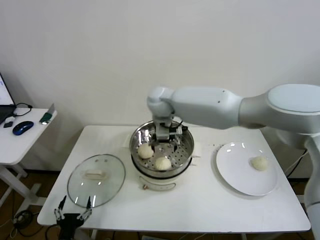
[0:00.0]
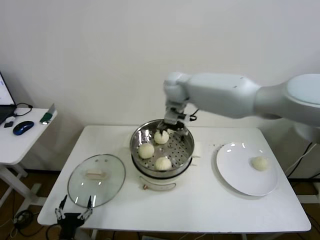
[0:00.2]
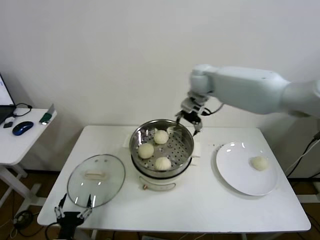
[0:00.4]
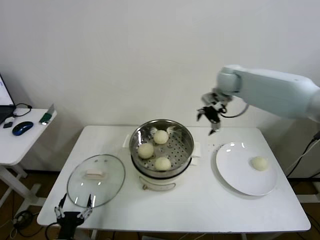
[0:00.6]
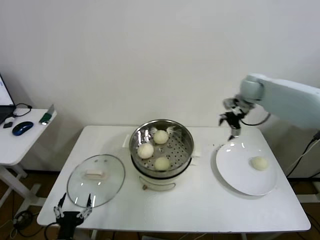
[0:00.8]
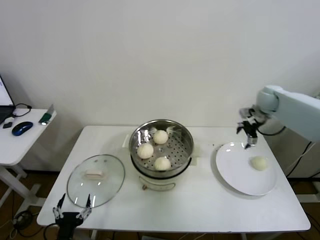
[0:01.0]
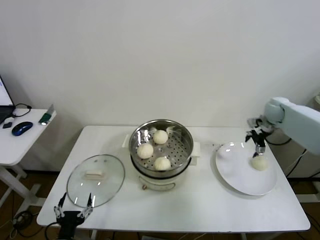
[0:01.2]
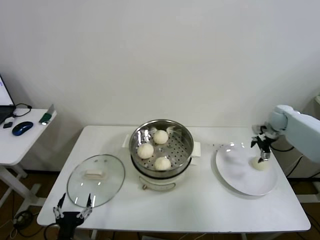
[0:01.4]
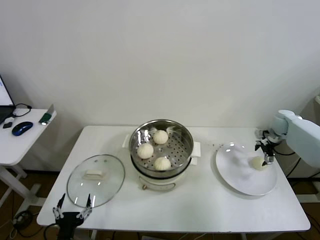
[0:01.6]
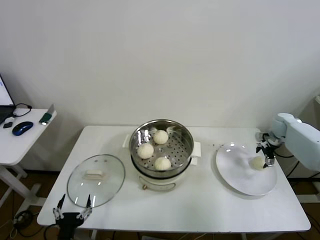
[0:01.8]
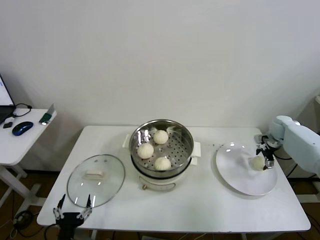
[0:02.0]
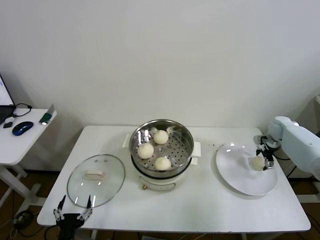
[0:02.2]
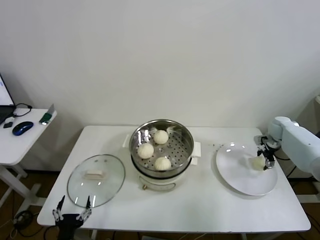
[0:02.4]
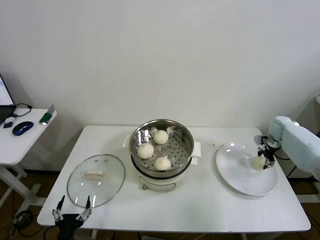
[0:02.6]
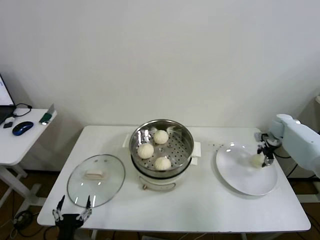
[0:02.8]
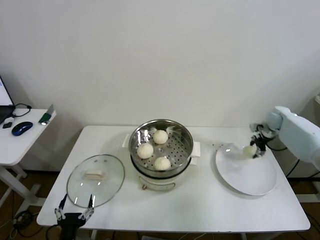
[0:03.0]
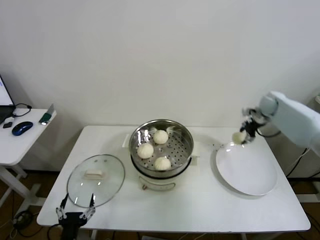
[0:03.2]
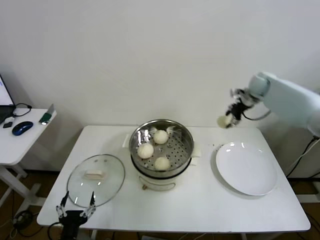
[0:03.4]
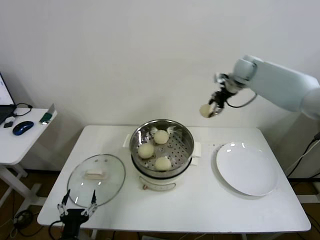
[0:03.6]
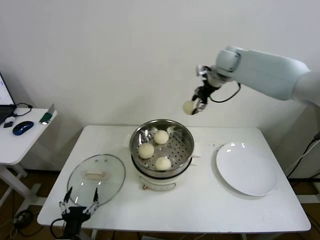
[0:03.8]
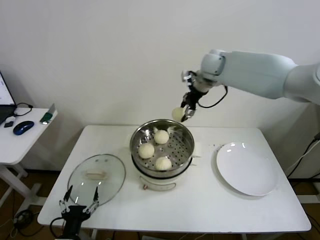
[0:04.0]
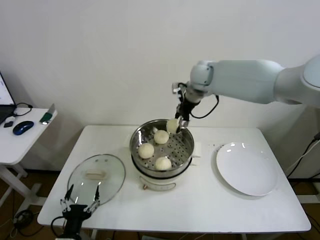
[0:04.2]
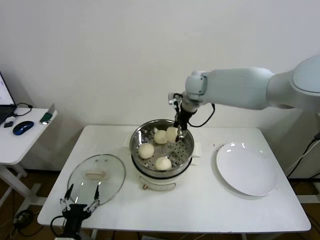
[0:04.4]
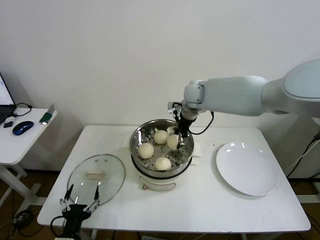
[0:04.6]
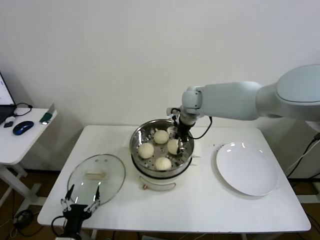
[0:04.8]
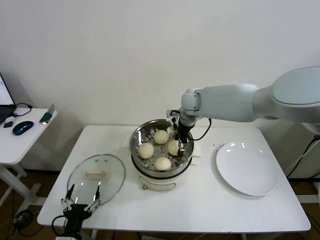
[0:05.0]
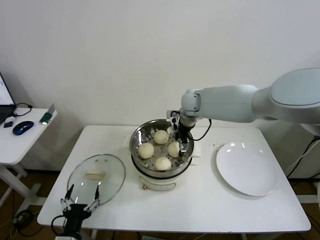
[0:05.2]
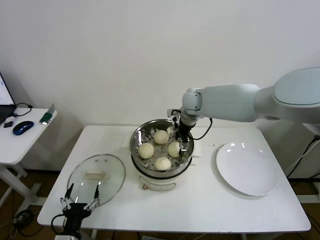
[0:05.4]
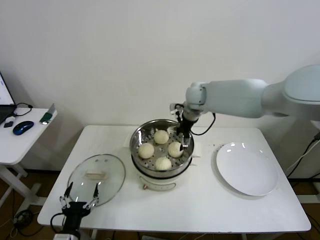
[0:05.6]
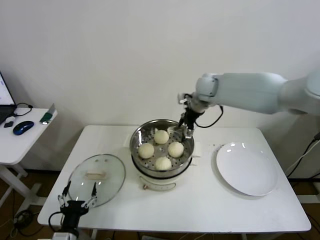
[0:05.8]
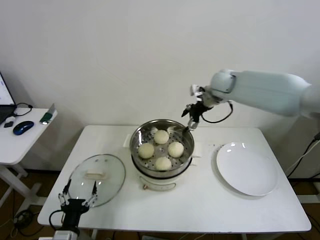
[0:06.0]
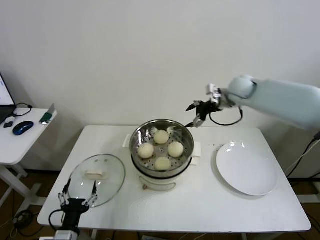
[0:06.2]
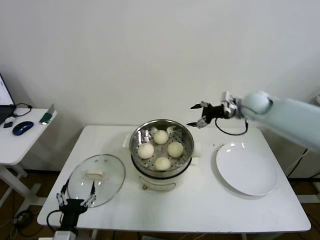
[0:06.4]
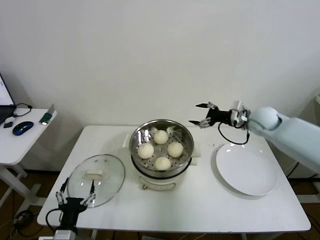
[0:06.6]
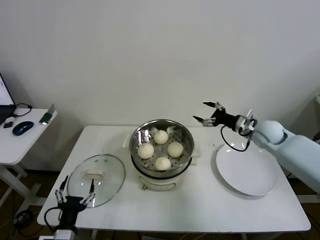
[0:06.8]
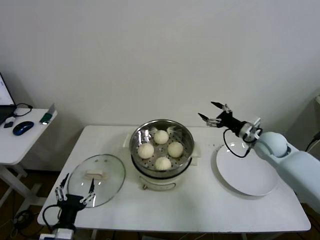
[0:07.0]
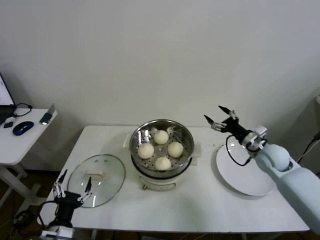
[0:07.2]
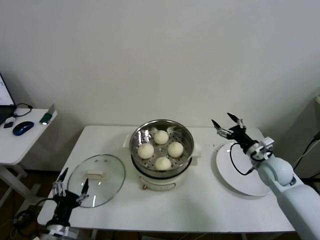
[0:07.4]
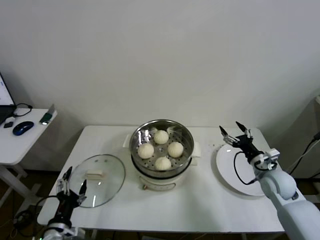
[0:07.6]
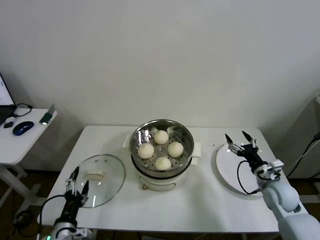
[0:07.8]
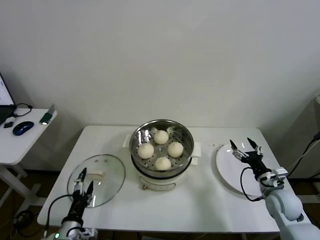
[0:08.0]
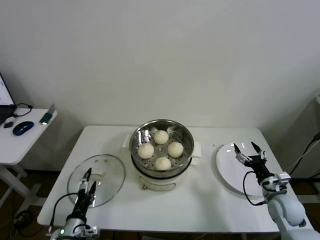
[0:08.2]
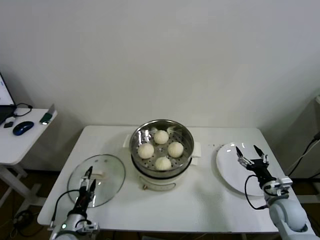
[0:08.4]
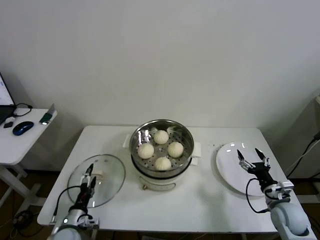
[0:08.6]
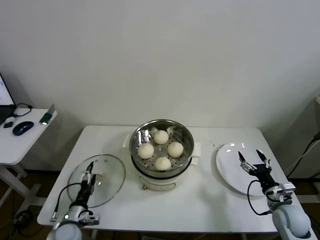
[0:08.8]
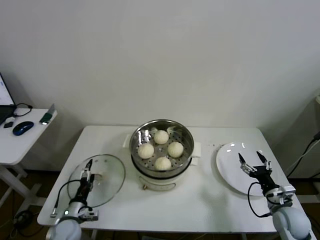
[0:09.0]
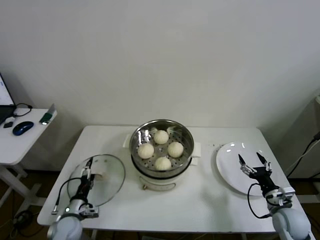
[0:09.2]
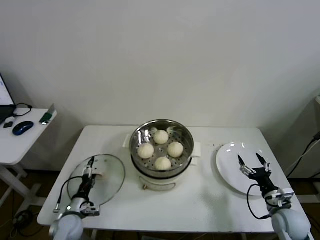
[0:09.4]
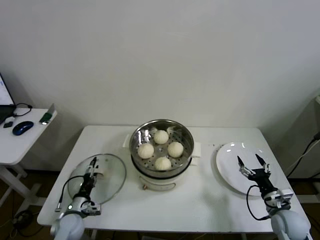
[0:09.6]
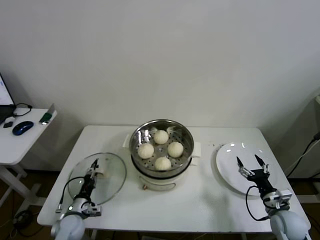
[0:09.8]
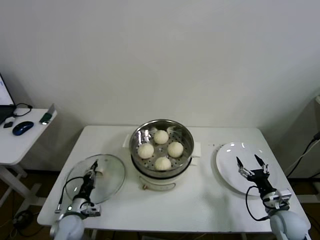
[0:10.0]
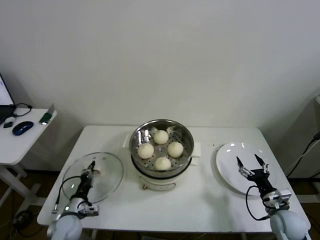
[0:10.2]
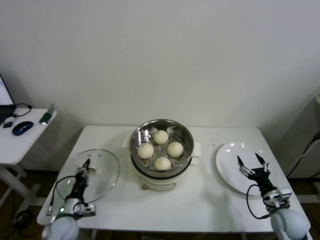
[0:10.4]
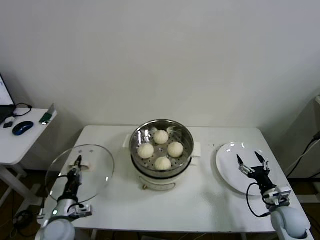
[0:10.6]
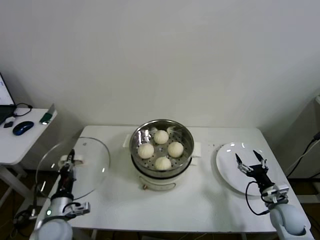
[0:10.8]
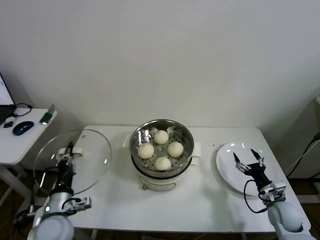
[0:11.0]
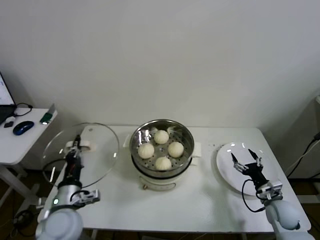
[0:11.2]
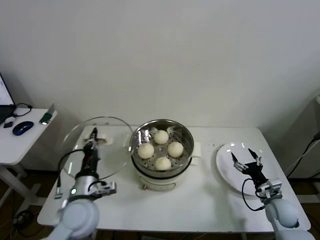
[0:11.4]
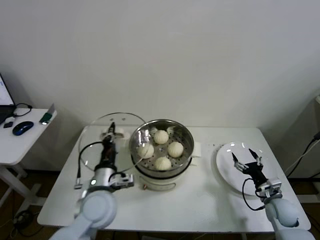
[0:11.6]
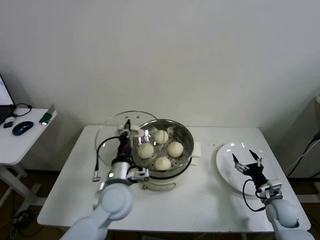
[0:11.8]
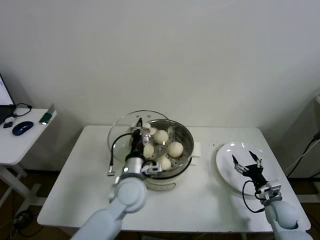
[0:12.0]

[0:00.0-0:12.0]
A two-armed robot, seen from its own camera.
Step, 0:00.0 to 0:02.6: Grasp the baozi in the plate with right gripper.
Step, 0:02.8 to 0:05.0: Place the baozi on the steamer with right gripper.
Step, 0:05.2 to 0:10.0: Grasp the pot lid with left gripper.
0:00.0 to 0:01.6: The right gripper is displaced to the right by about 50 cm.
0:01.6 to 0:03.0: The right gripper closes its fingers.
0:03.0 to 0:04.4: The right gripper shifts roughly 40 cm to the left and upward.
0:04.4 to 0:06.0: The right gripper goes about 10 cm to the right, and opens its fingers.
0:06.0 to 0:07.6: The right gripper moves downward, backward and to the right, approximately 40 cm.
0:07.6 to 0:09.0: The left gripper travels downward and forward by about 15 cm; the right gripper moves backward and downward, roughly 10 cm.
0:09.0 to 0:10.4: The left gripper closes its fingers.
0:10.4 to 0:12.0: The left gripper travels to the right and upward by some 30 cm.

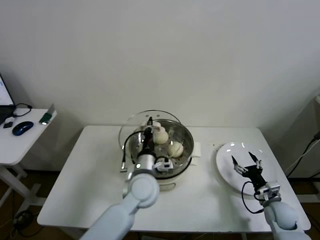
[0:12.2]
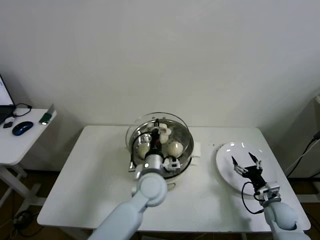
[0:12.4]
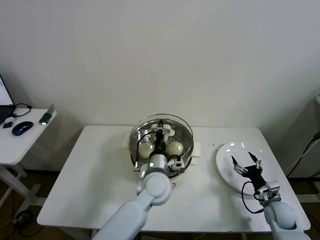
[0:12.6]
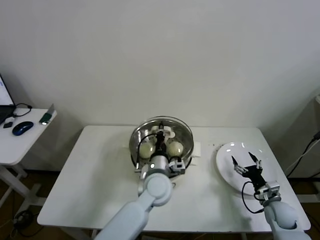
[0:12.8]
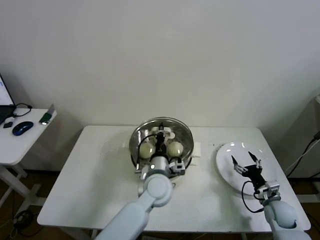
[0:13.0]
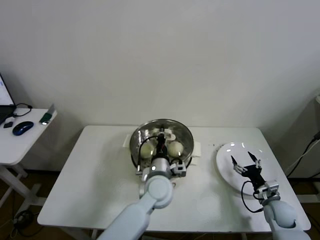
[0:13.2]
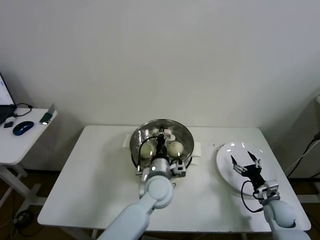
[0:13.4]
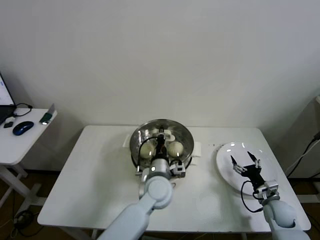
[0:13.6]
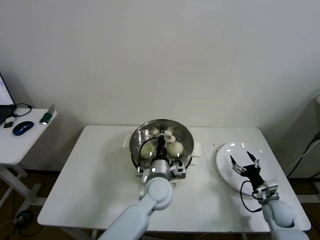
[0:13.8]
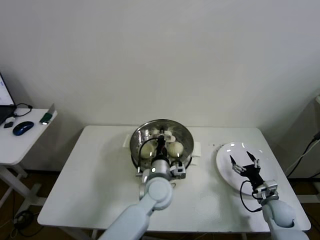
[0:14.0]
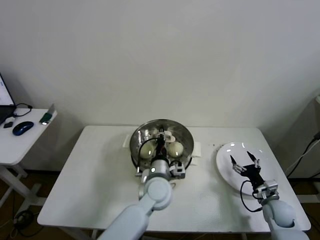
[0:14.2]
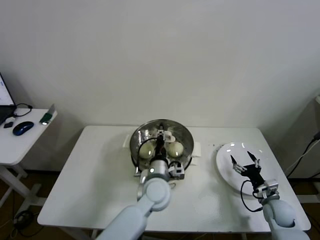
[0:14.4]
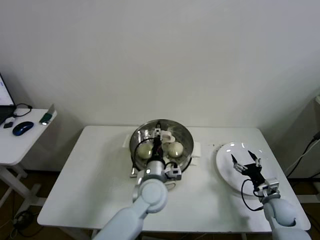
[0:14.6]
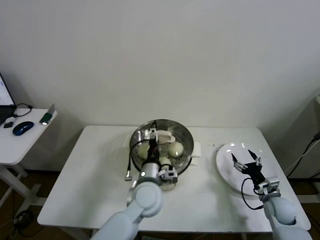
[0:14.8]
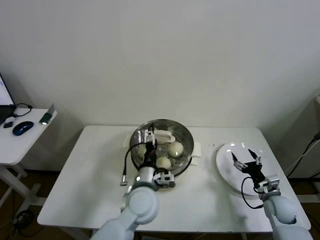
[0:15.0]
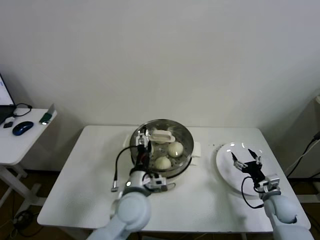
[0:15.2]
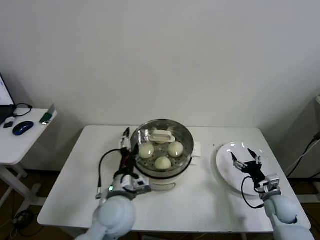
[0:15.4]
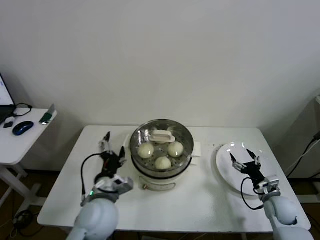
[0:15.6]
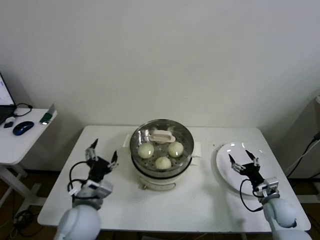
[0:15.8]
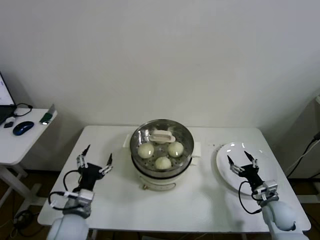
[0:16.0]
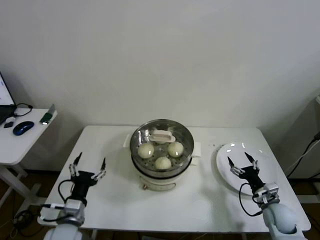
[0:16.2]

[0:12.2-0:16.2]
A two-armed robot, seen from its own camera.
0:12.2 to 0:13.6: The left gripper moves to the right, roughly 5 cm.
0:13.6 to 0:14.8: The left gripper opens its fingers.
0:14.8 to 0:16.2: The left gripper shifts some 25 cm to the left and backward.

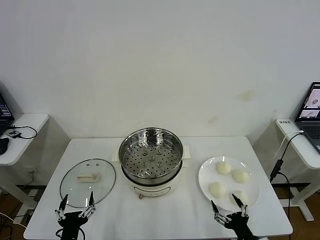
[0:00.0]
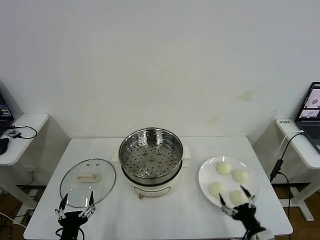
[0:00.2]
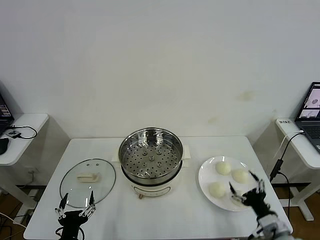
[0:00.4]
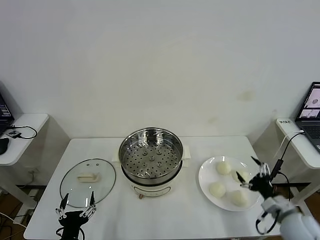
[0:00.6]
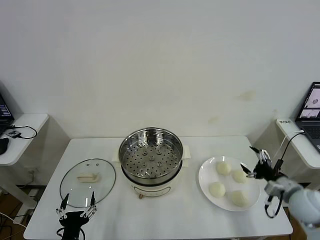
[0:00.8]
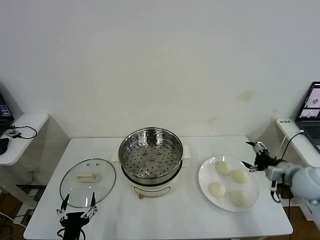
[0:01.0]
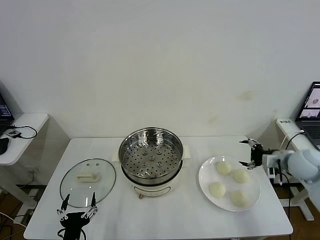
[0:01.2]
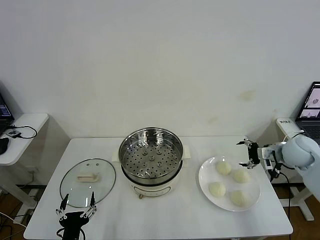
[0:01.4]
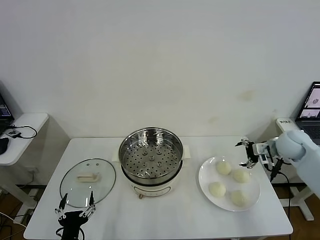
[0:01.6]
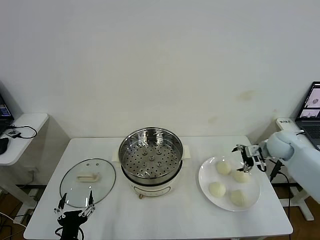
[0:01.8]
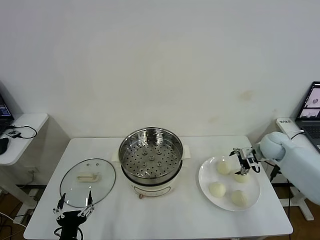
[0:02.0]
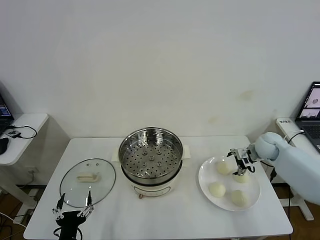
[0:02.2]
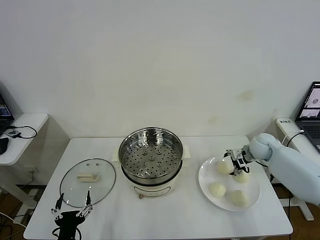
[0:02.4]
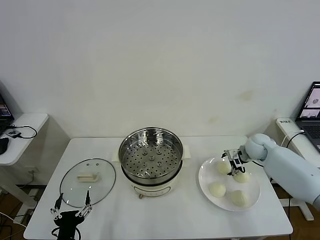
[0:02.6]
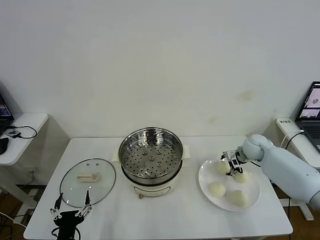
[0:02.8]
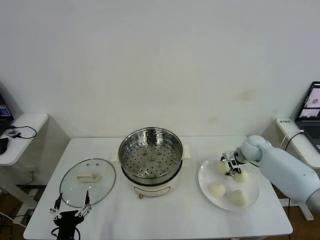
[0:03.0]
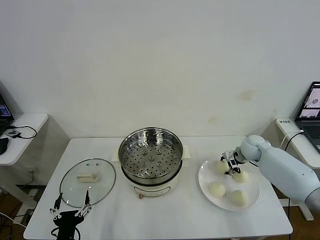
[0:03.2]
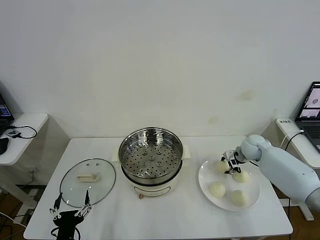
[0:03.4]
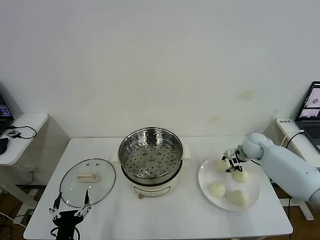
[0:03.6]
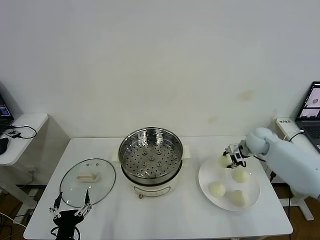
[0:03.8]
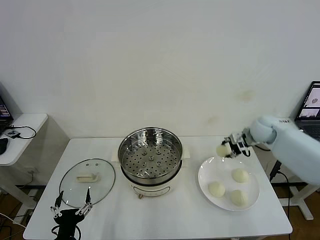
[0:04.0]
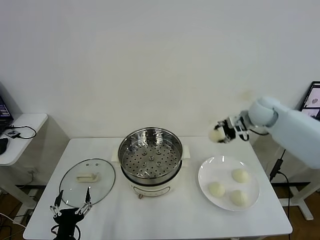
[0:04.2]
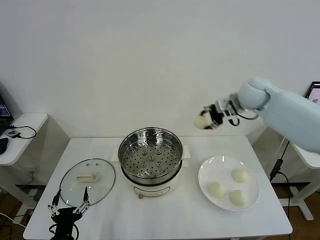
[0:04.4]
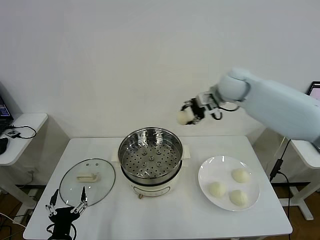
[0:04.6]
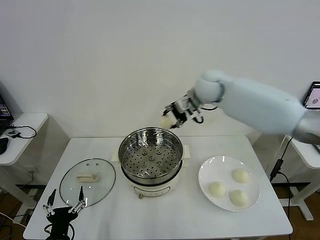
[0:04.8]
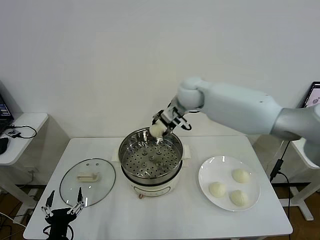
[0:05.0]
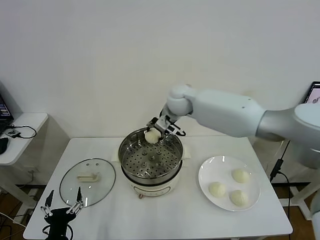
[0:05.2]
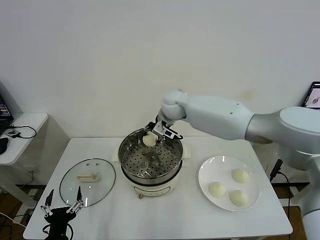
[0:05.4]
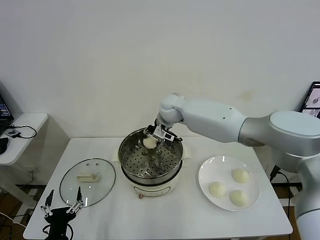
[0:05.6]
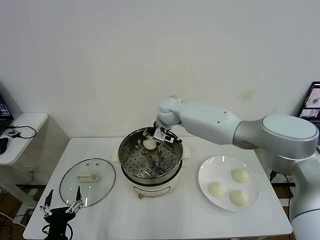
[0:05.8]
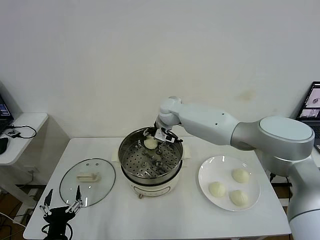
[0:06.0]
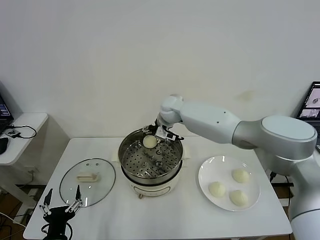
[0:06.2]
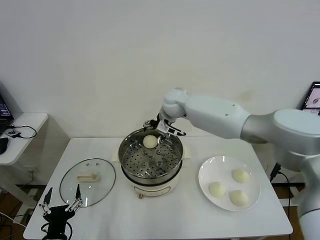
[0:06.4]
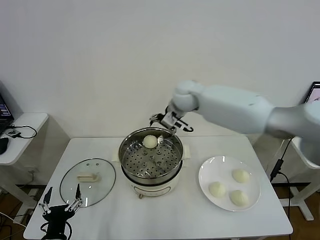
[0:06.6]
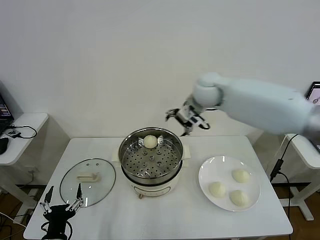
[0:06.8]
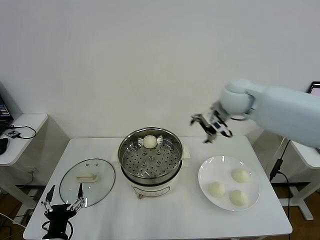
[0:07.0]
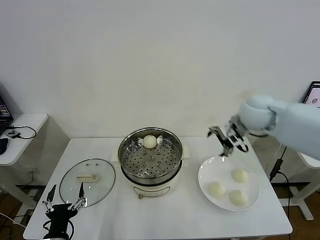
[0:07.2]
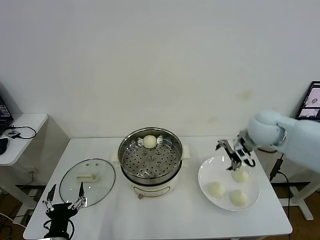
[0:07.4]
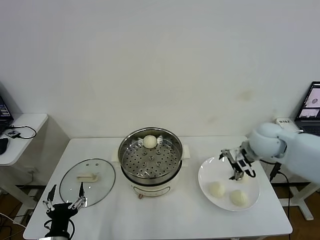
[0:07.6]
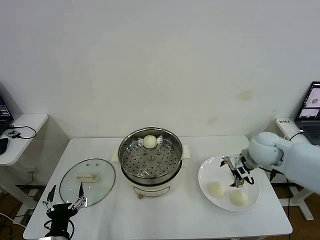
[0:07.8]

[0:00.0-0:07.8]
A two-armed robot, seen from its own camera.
Step, 0:00.0 to 0:03.2: Grasp the baozi in the plate with right gripper.
Step, 0:03.4 to 0:06.0: Place the baozi on the steamer with right gripper.
0:01.6 to 0:03.2: The right gripper is displaced downward and to the left by about 10 cm, and closes.
0:03.2 to 0:04.6: The right gripper shifts approximately 30 cm upward and to the left.
0:04.6 to 0:06.2: The right gripper moves to the left and downward, approximately 15 cm, and opens its fingers.
0:06.2 to 0:07.8: The right gripper goes about 30 cm to the right and backward.
